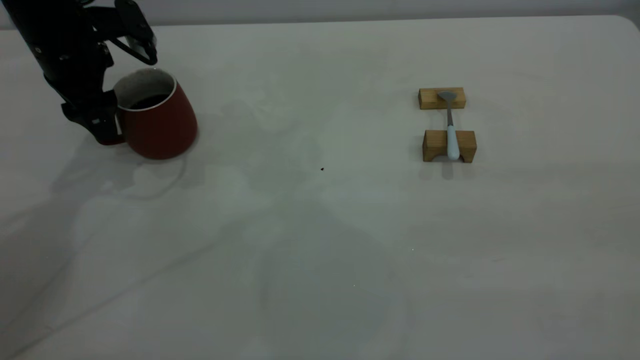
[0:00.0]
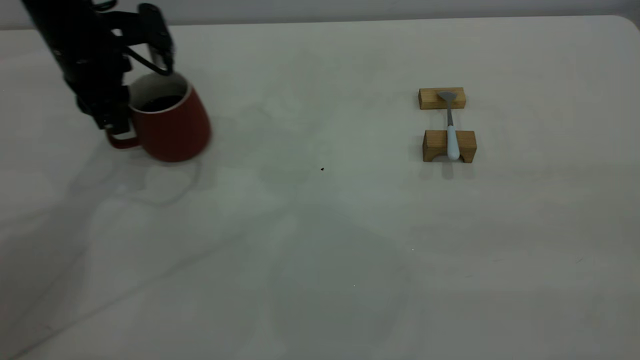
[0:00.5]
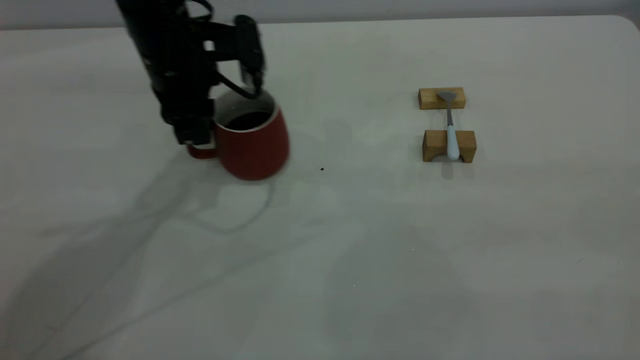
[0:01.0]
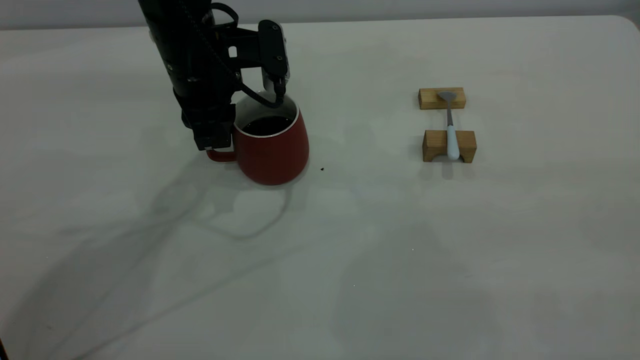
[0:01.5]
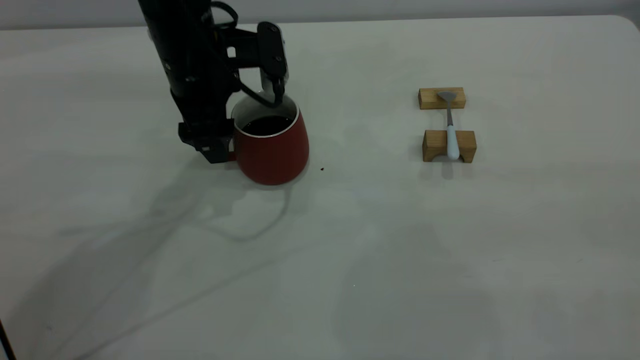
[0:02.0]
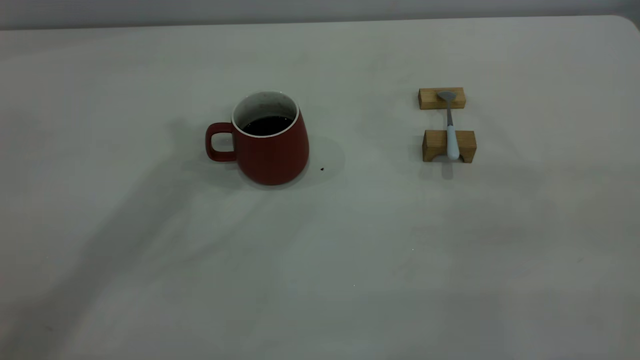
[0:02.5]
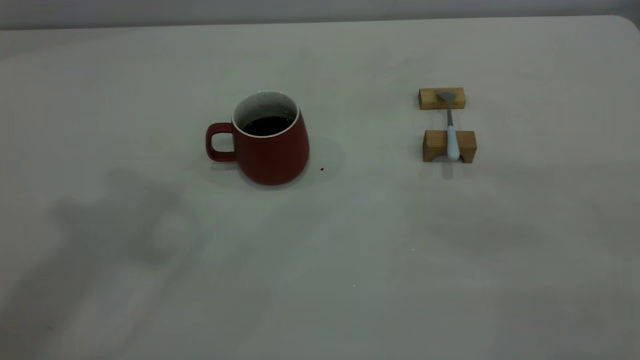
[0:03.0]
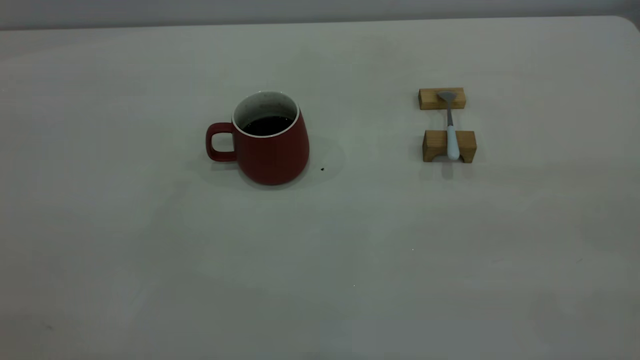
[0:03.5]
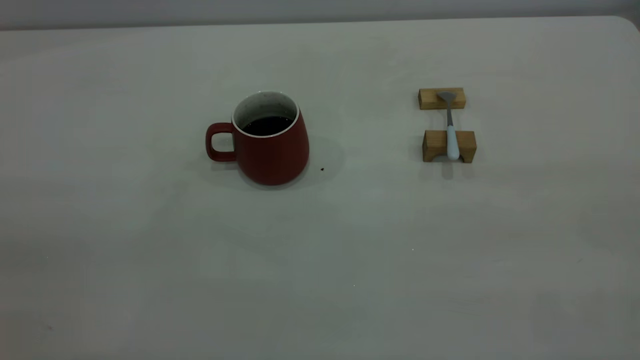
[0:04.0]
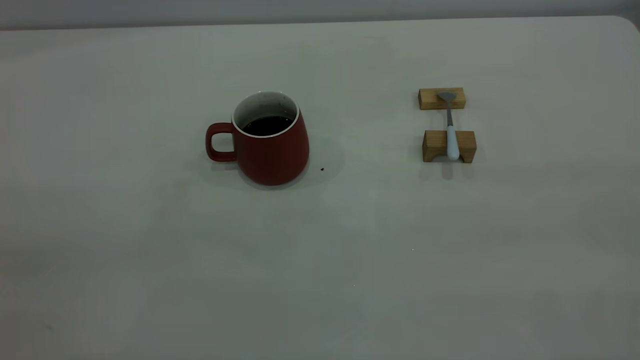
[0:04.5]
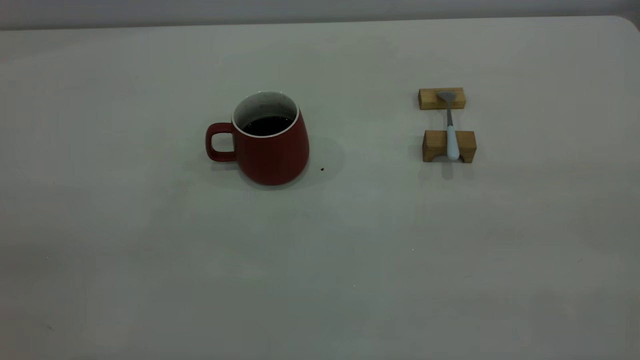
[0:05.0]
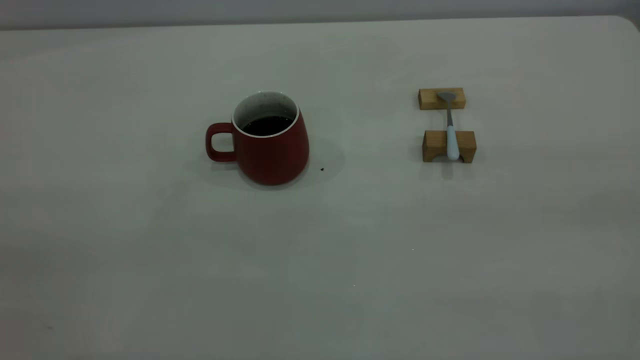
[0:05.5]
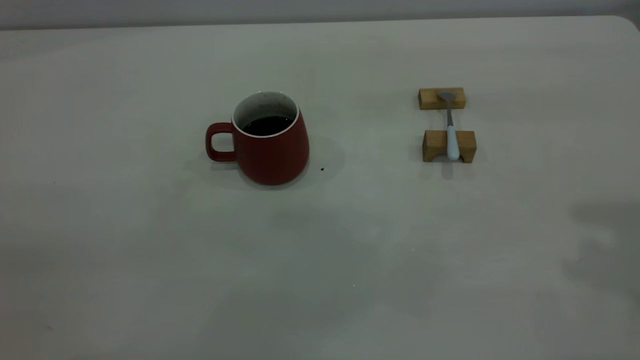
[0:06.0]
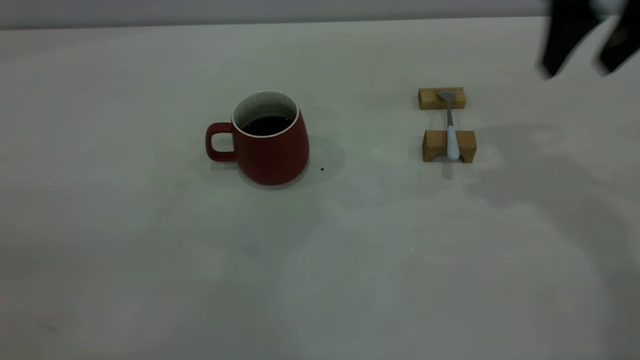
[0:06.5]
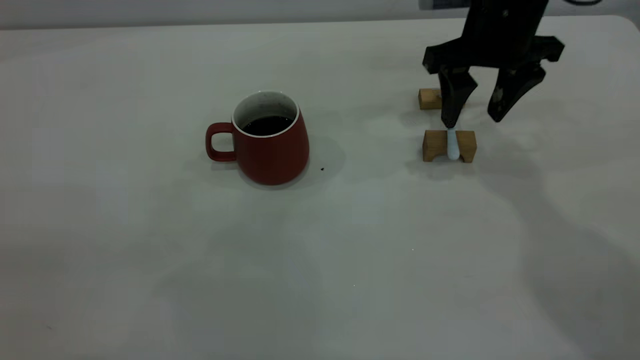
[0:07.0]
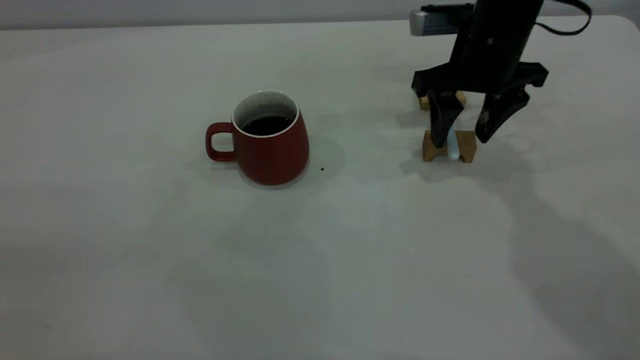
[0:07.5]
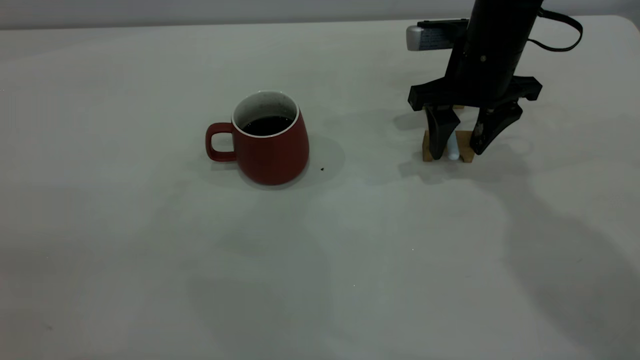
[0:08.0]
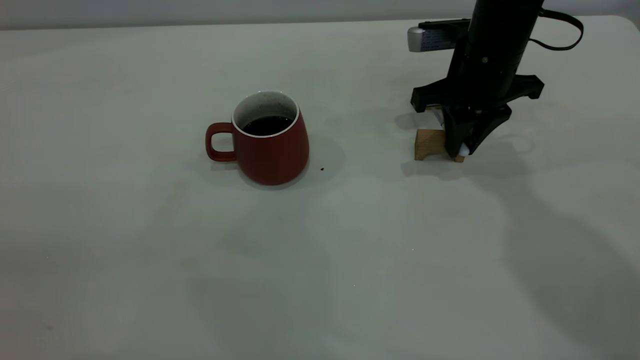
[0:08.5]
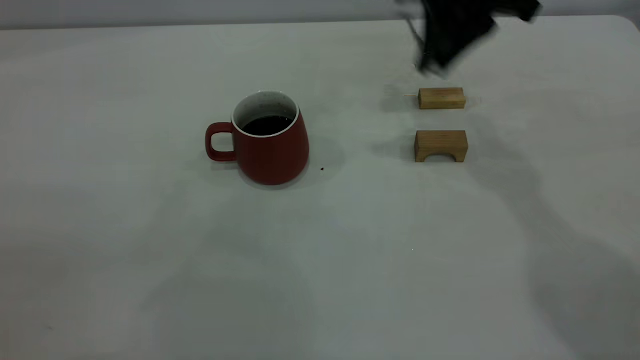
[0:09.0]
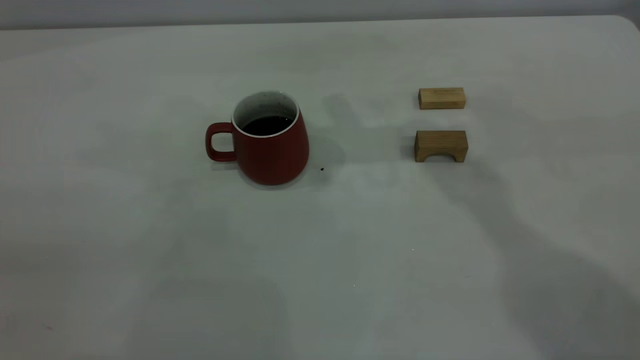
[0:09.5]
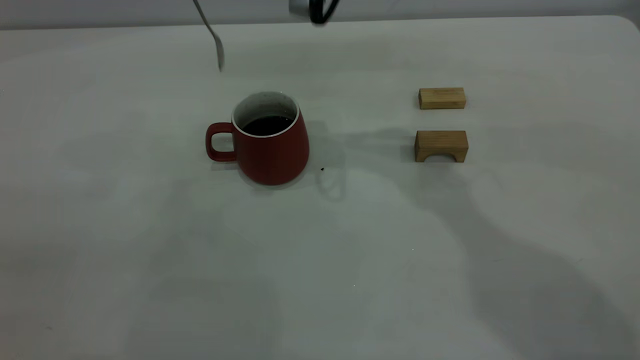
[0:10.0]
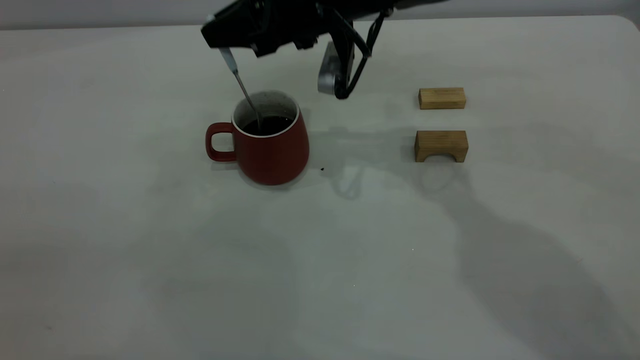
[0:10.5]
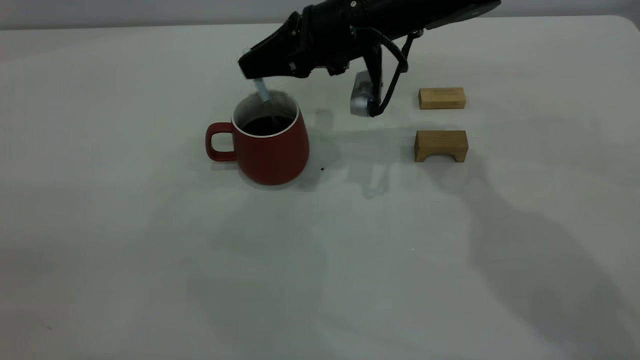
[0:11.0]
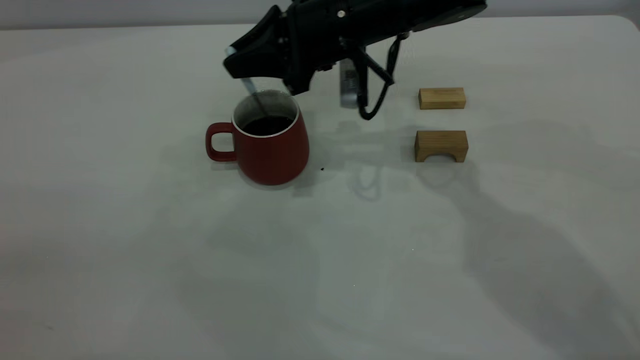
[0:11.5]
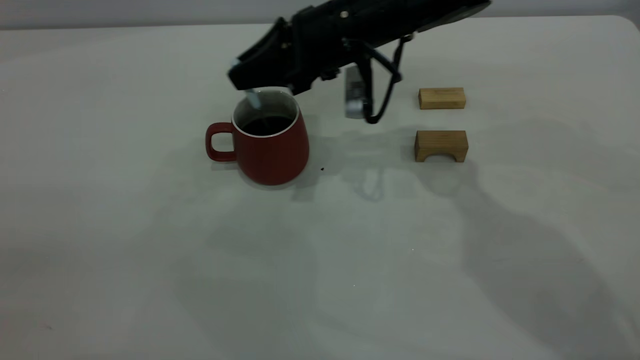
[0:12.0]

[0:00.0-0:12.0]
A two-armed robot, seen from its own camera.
Step, 0.0 to 2.0 s: Move the cup with coffee to the center of view.
Step, 2.5 to 8.5 s: Pick up the spoon.
0.0 to 2.0 s: The left gripper shifts about 15 cm to the right, and closes and opens again.
2.0 to 4.0 s: The left gripper goes some 50 cm backward, upward and to the left, and closes up.
6.0 to 8.0 s: The right gripper shifts roughly 35 cm downward, forward and to the left.
8.0 to 10.0 s: The right gripper goes approximately 20 cm to the left and upward, and closes its fingers.
10.0 to 12.0 s: The right gripper moves downward, approximately 10 cm.

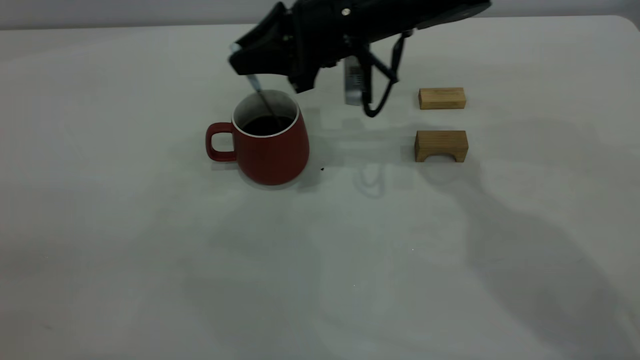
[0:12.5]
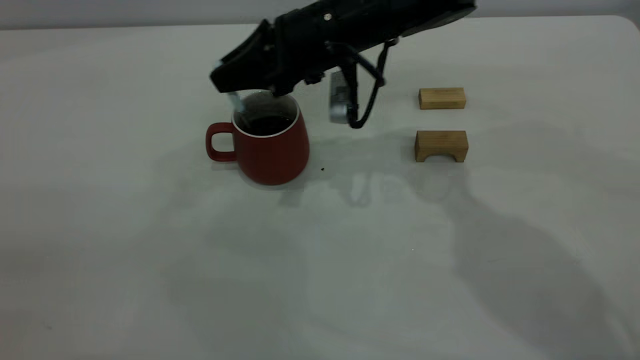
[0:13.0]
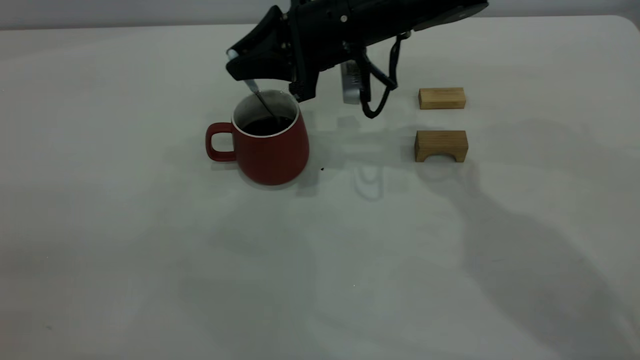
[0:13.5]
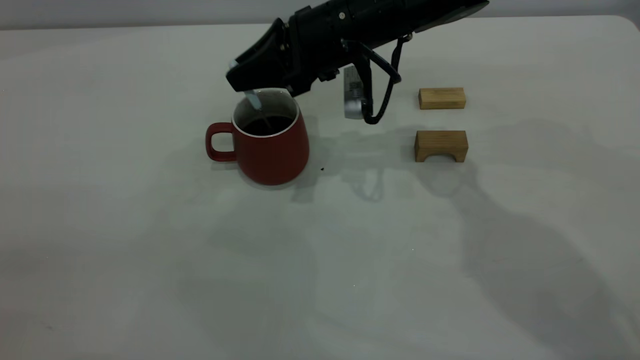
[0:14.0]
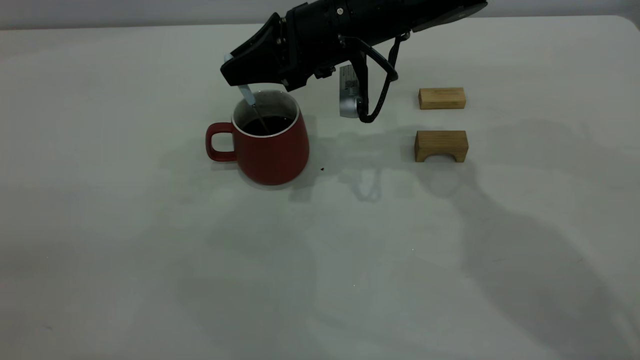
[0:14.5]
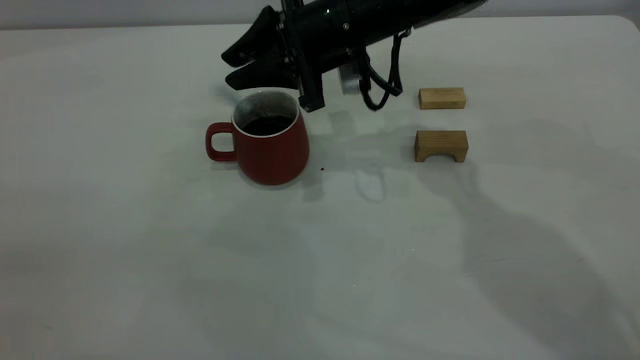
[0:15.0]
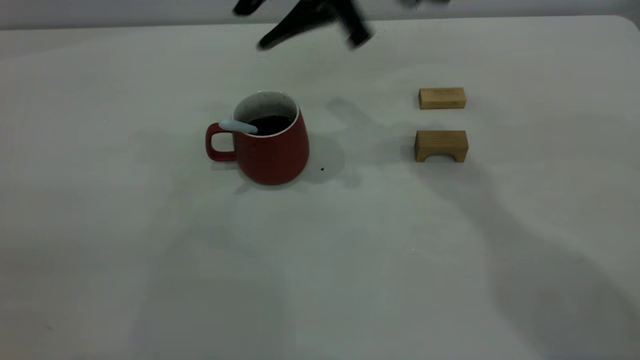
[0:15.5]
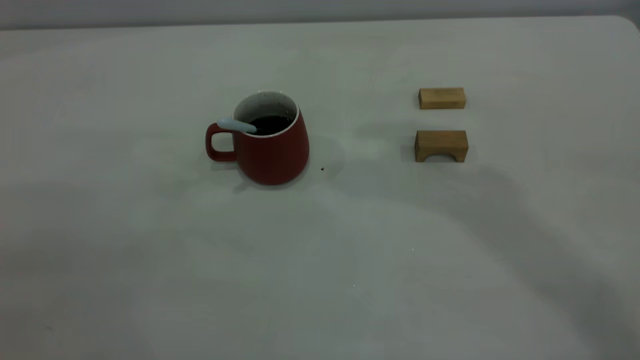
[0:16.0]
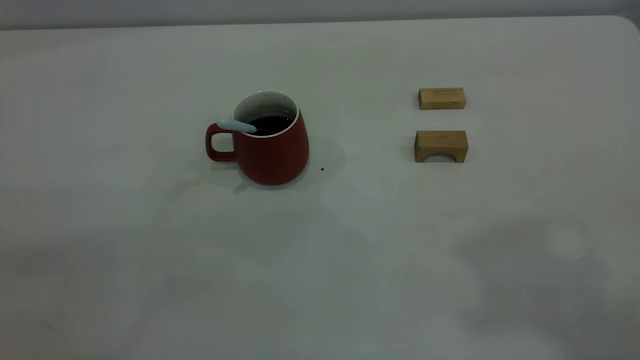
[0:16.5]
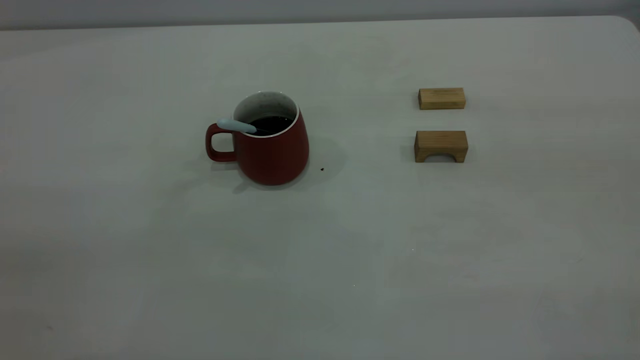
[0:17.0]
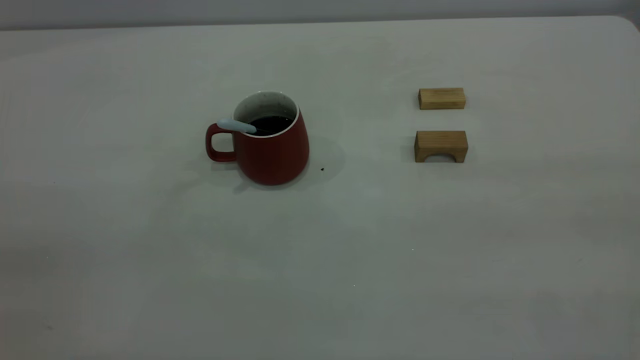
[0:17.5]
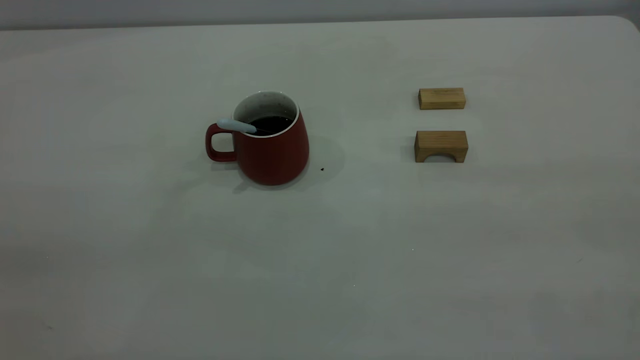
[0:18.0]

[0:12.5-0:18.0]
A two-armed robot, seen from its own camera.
Step, 12.5 to 15.0 s: Stir the coffee in the cup.
12.5 to 14.5 s: The grippers make only small movements.
14.5 to 16.0 s: The right gripper shifts about 35 cm upward, and opens up.

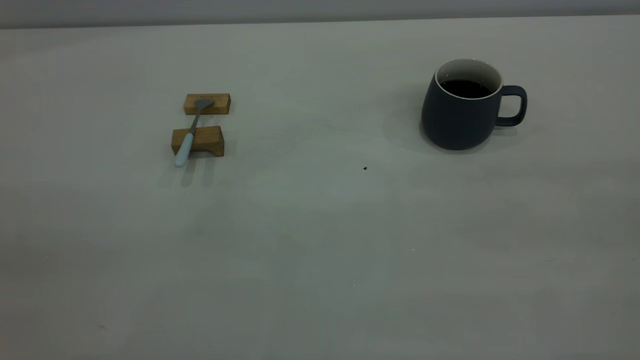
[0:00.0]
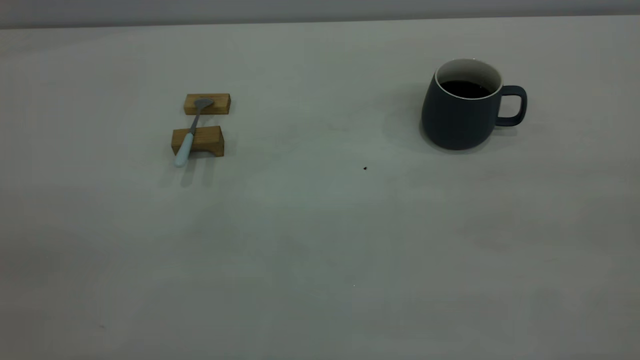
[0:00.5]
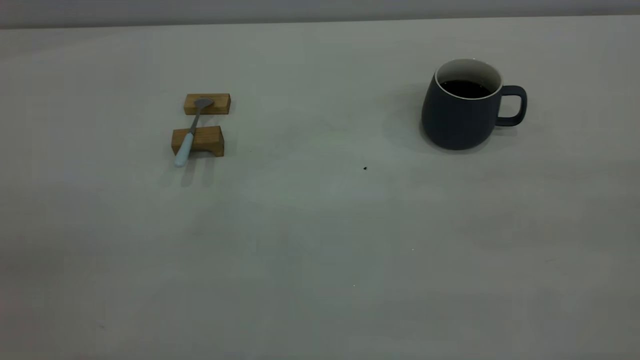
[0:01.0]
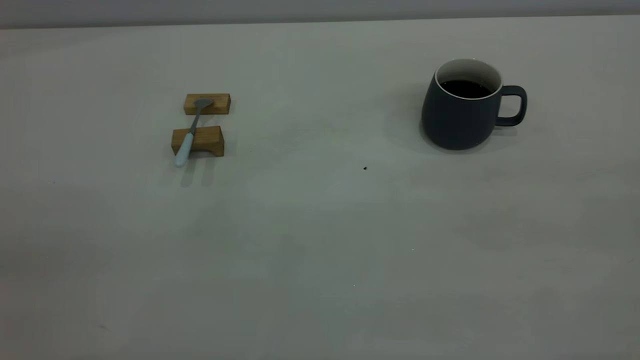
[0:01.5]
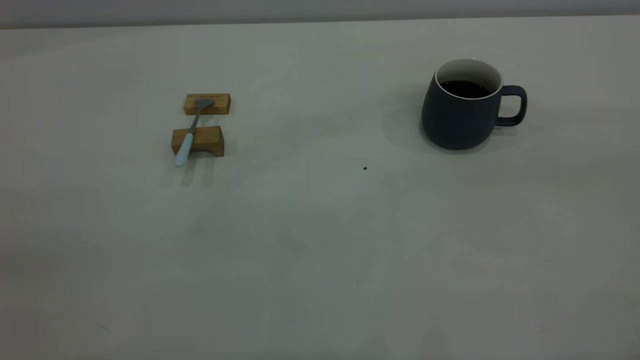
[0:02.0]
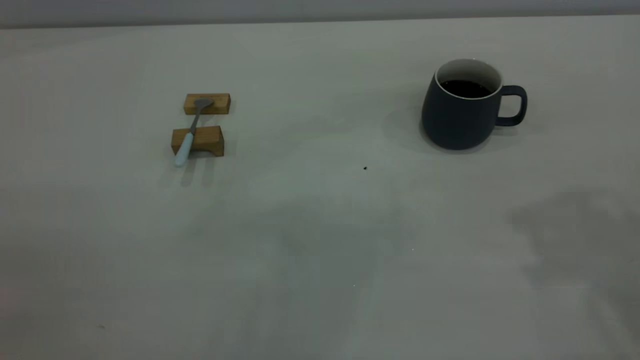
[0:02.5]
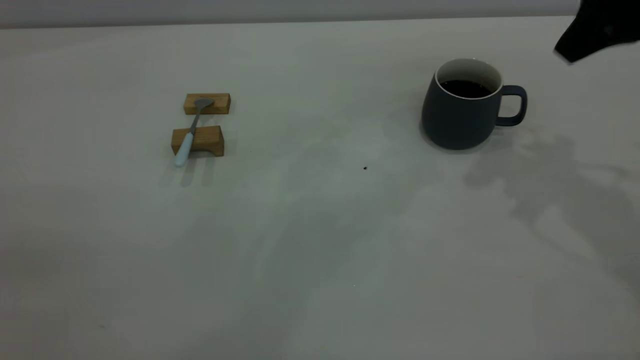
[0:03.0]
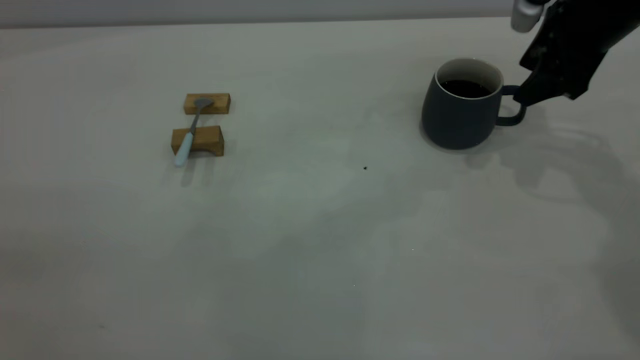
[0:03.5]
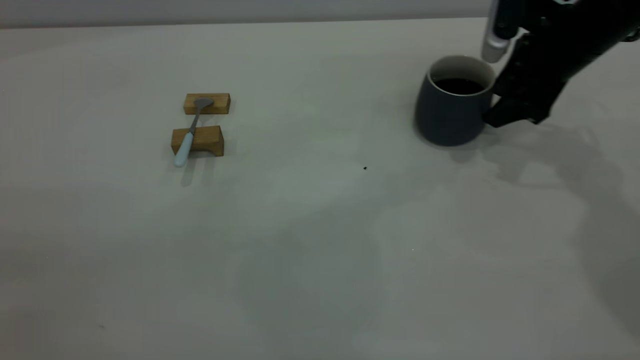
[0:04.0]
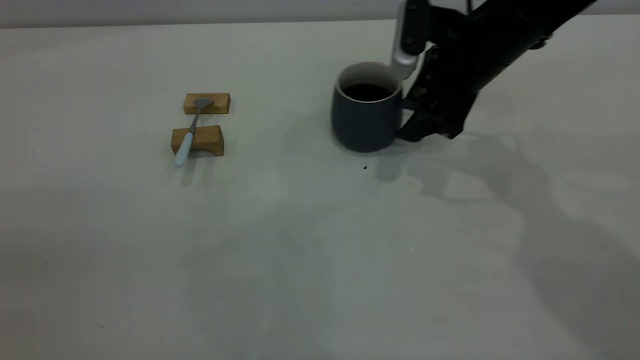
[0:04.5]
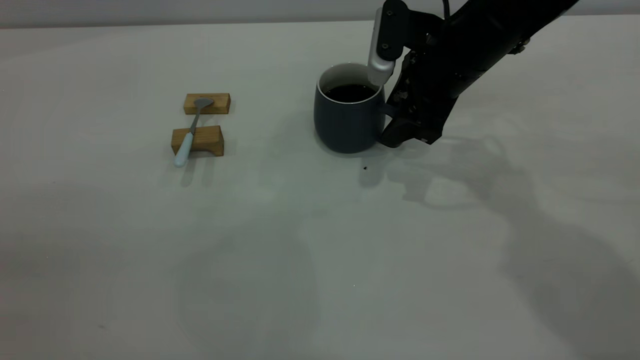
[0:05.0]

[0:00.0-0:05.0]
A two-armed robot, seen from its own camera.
2.5 to 5.0 s: The right gripper goes about 30 cm downward, forward and to the left.
